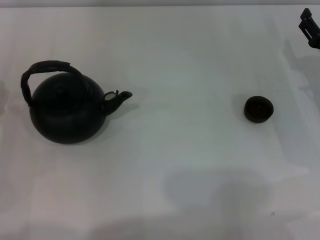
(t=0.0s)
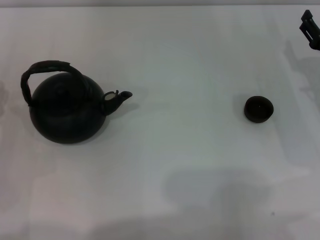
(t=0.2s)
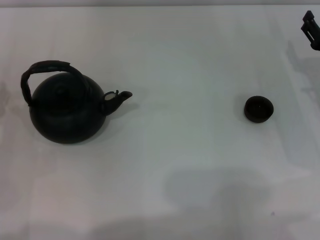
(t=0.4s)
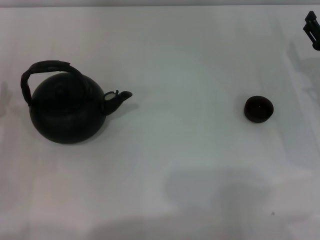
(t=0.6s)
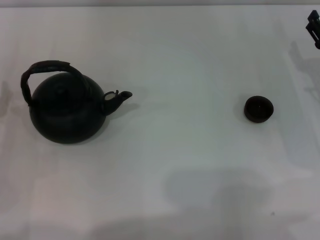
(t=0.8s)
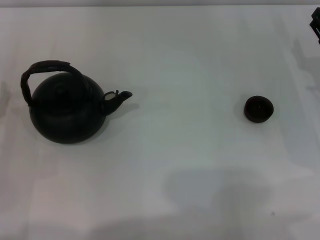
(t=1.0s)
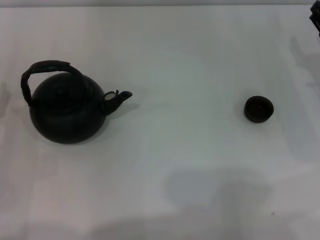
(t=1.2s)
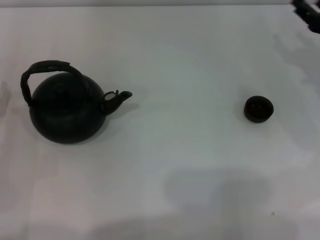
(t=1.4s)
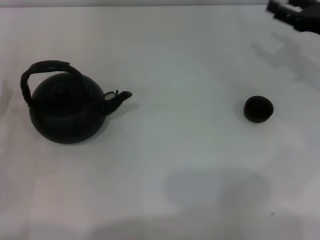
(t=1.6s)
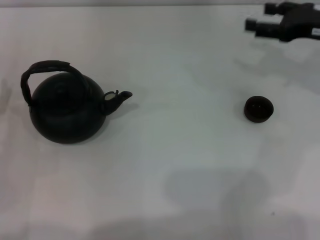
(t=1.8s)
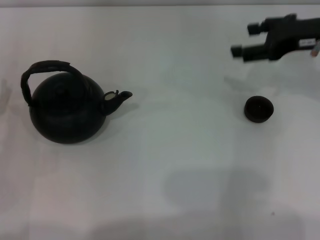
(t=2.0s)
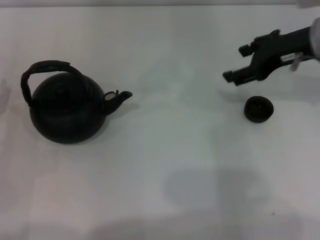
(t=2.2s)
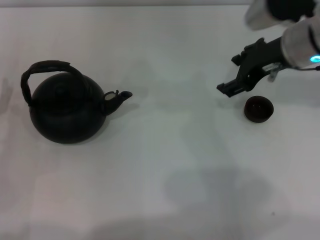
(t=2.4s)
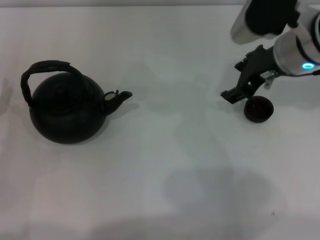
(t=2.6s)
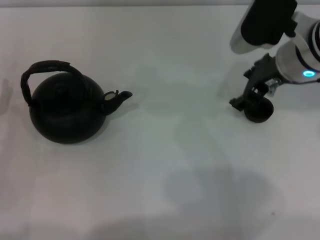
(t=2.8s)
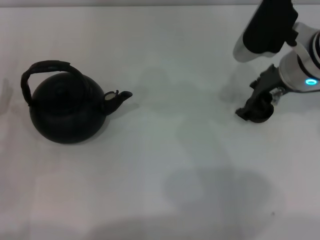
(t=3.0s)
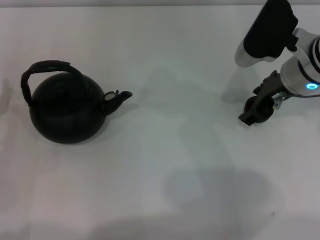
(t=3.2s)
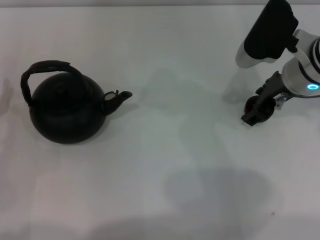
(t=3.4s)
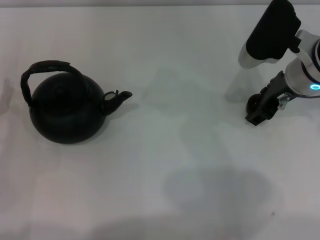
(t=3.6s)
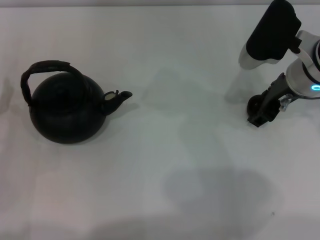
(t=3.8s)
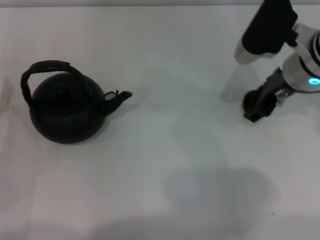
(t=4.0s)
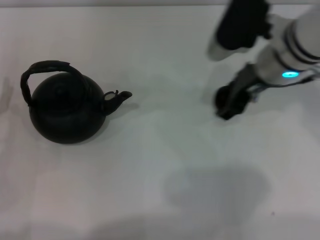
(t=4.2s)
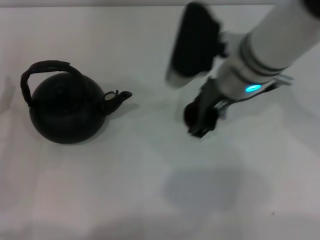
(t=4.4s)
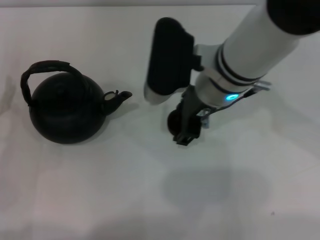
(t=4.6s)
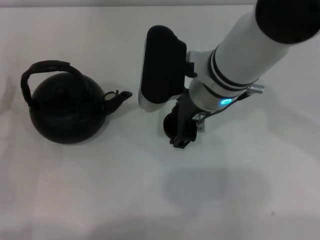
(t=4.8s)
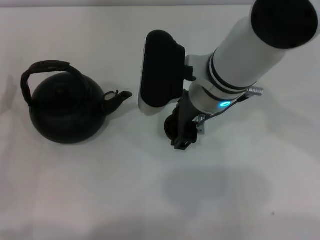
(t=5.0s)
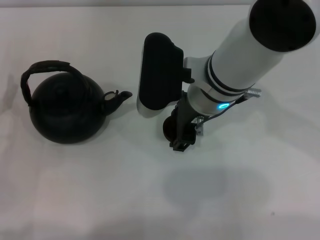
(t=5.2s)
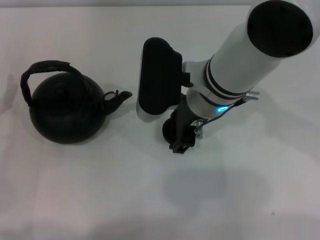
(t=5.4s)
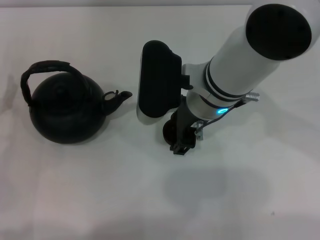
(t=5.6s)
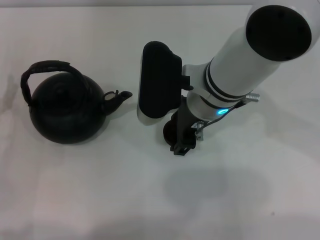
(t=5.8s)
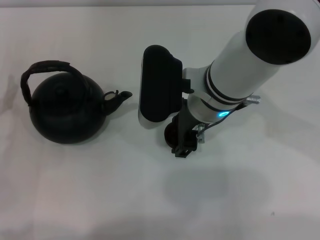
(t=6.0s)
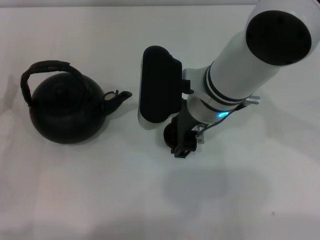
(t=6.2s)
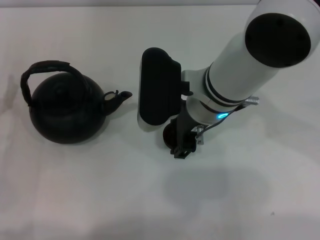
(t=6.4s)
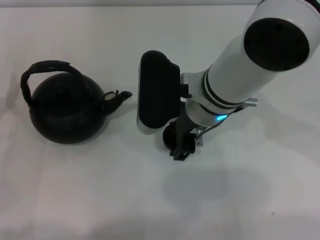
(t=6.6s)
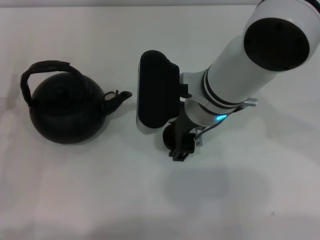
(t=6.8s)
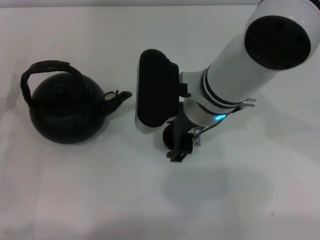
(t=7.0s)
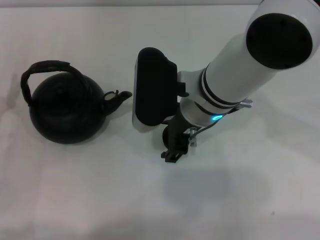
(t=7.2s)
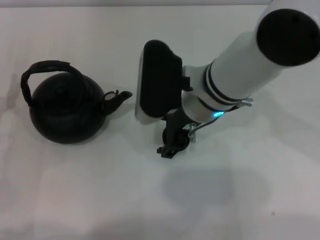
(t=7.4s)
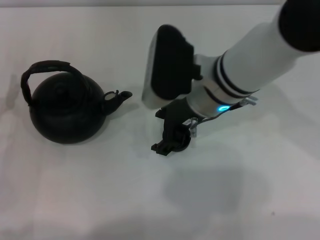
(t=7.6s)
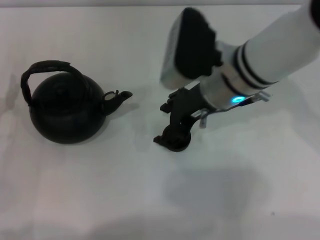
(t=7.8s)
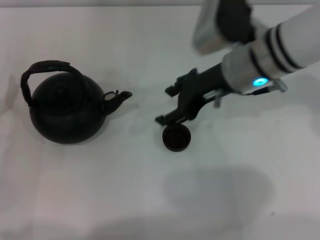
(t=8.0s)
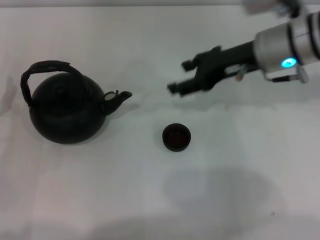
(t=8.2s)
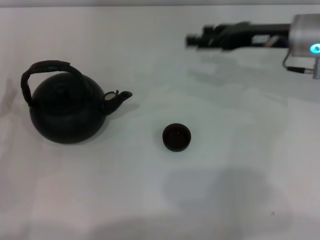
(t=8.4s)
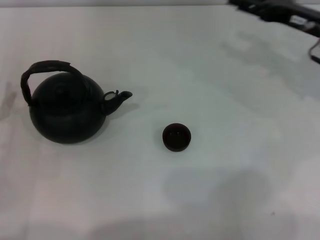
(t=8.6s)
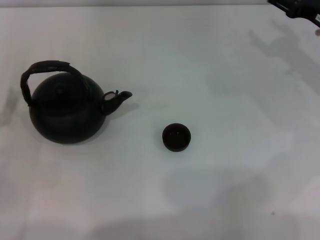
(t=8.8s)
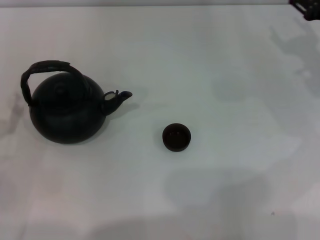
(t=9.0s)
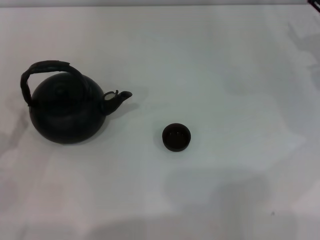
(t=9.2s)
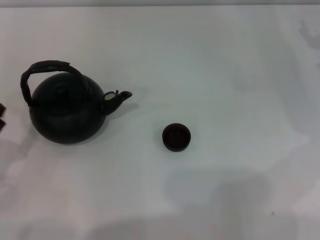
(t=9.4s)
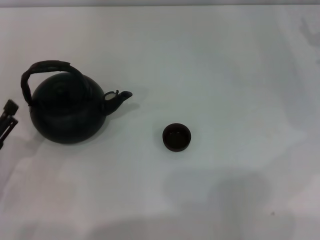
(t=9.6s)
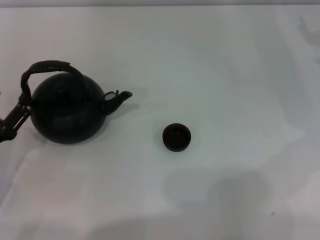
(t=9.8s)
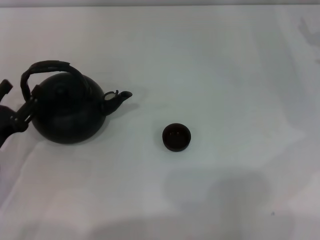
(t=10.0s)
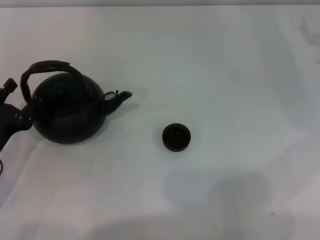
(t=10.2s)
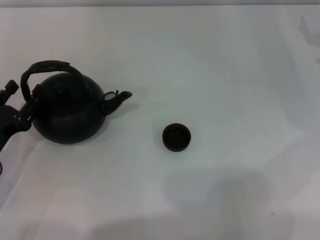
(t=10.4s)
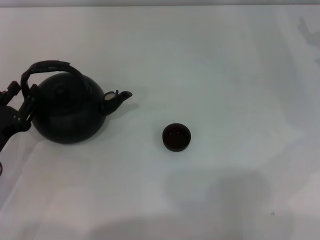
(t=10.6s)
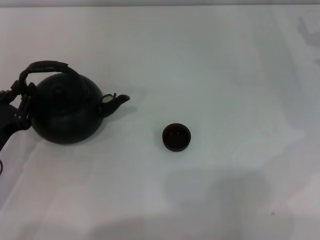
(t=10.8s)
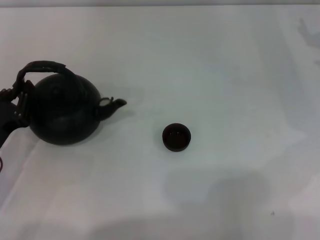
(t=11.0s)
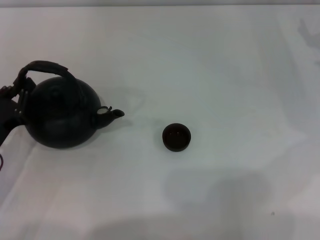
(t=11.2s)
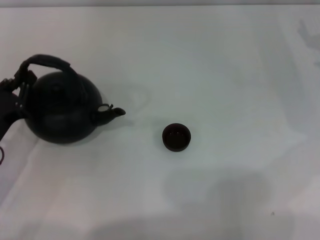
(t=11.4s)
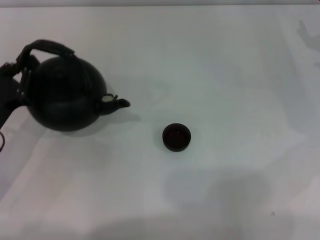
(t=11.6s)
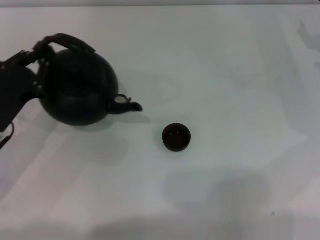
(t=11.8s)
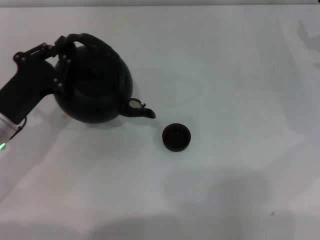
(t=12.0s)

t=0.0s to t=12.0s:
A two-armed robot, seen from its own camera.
Task of the whole recording: Grasp the handle of the teapot with one hand and pour tea into the teacup.
Step, t=0.0s to t=4.2s: Pick up the teacup with the right gripper.
Step, t=4.6s to t=7.6s: Place the teacup in the center of view with the right gripper.
Step, t=8.0s to t=11.6s: Pick up the teapot with the left gripper.
t=0.0s to t=1.6s: The right gripper shifts about 5 cm upward.
t=1.6s to t=3.0s: The right gripper moves to the left, approximately 15 cm.
t=3.0s to t=4.4s: The right gripper shifts about 10 cm to the left.
t=6.0s to t=7.6s: The grippers move only a little.
t=7.6s to t=9.0s: The right gripper moves to the right, approximately 25 cm.
t=9.0s to t=10.4s: The grippers stay close to where they were, moving slightly.
t=10.4s to t=12.0s: The left gripper heads forward, covering roughly 5 cm, and closes its fingers.

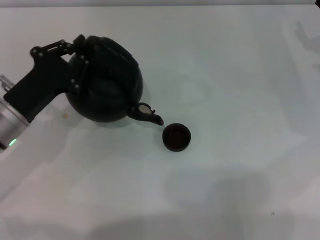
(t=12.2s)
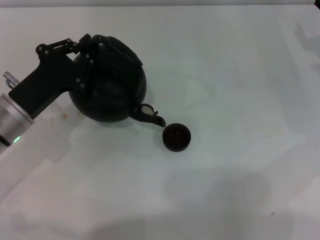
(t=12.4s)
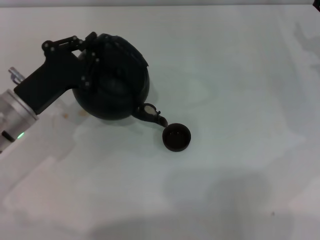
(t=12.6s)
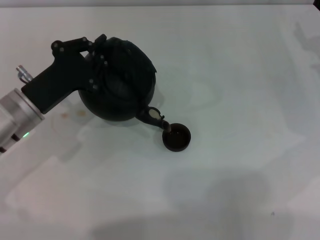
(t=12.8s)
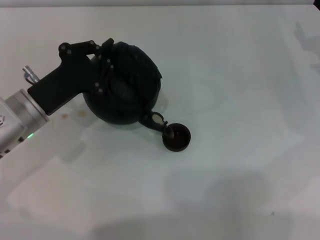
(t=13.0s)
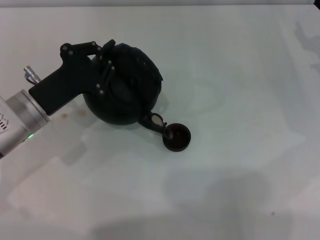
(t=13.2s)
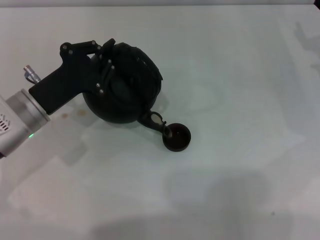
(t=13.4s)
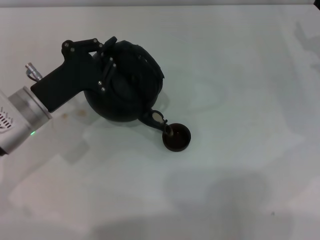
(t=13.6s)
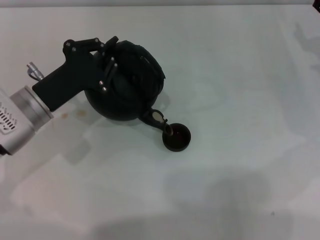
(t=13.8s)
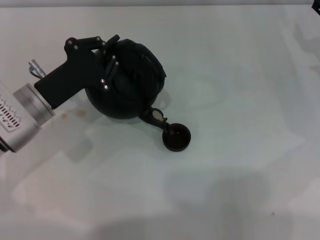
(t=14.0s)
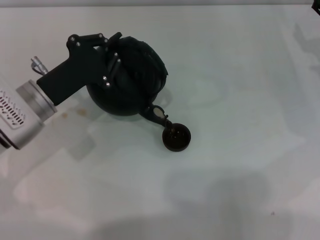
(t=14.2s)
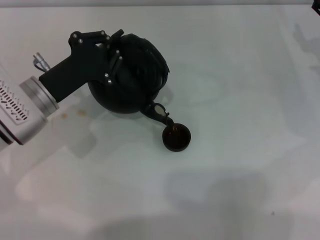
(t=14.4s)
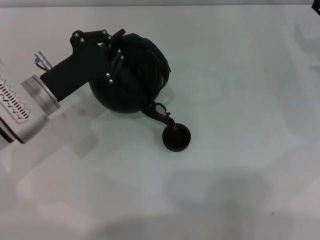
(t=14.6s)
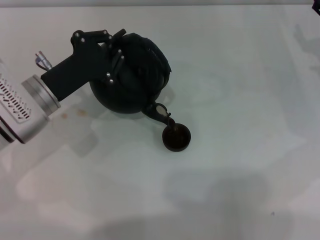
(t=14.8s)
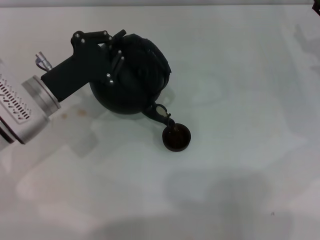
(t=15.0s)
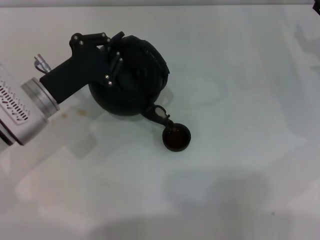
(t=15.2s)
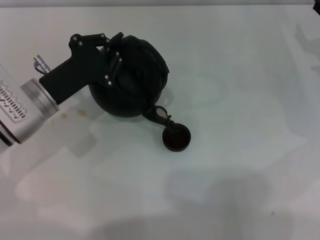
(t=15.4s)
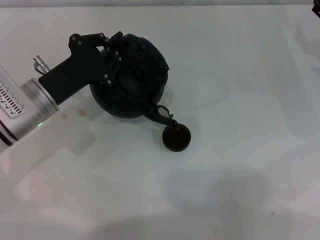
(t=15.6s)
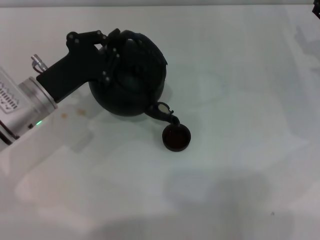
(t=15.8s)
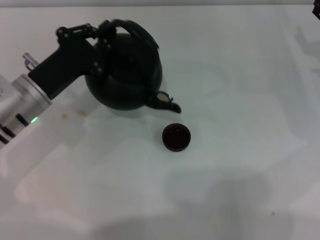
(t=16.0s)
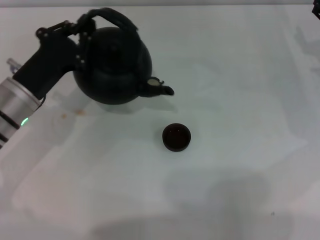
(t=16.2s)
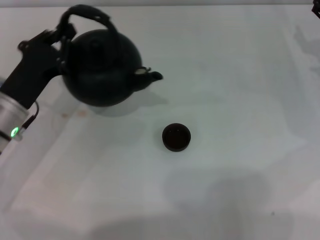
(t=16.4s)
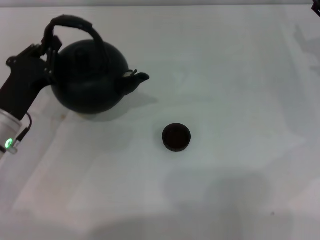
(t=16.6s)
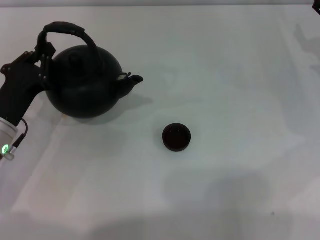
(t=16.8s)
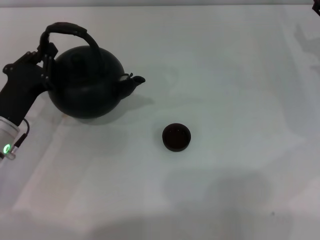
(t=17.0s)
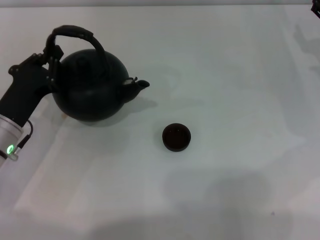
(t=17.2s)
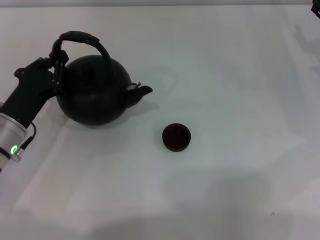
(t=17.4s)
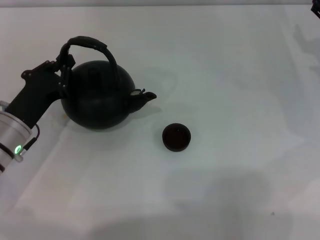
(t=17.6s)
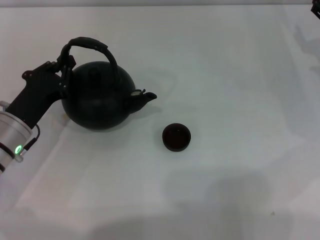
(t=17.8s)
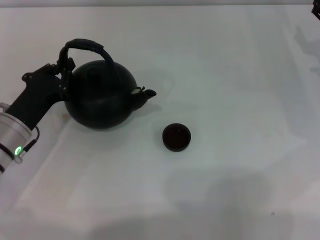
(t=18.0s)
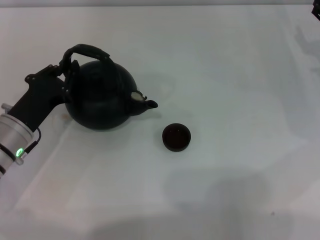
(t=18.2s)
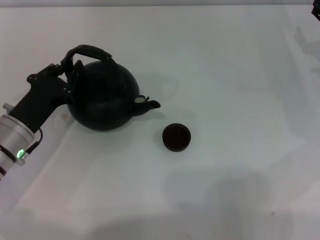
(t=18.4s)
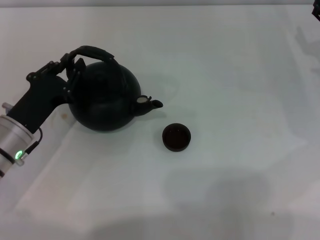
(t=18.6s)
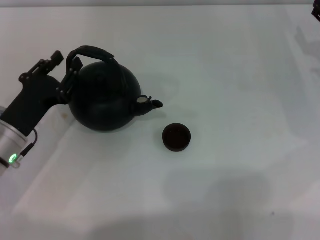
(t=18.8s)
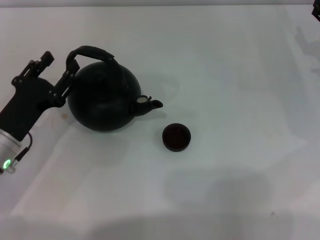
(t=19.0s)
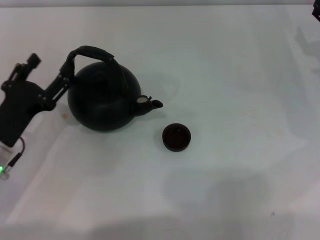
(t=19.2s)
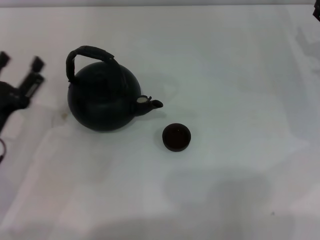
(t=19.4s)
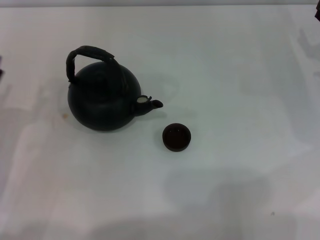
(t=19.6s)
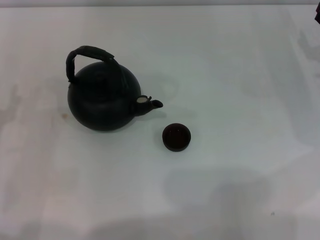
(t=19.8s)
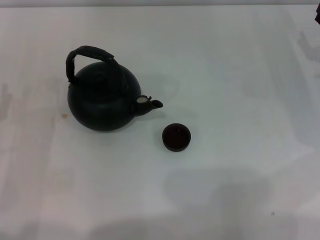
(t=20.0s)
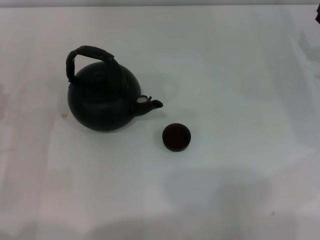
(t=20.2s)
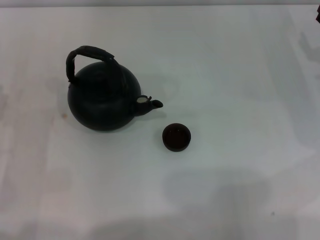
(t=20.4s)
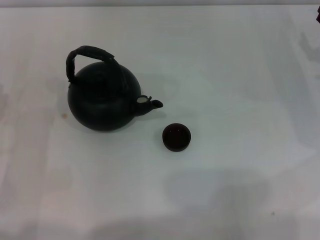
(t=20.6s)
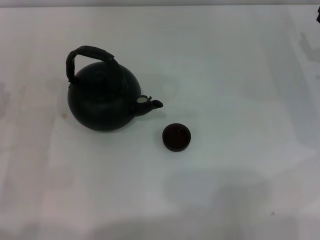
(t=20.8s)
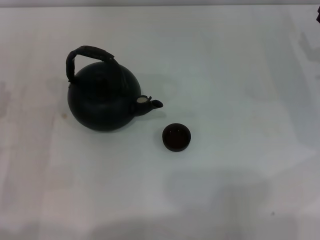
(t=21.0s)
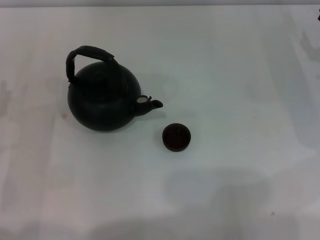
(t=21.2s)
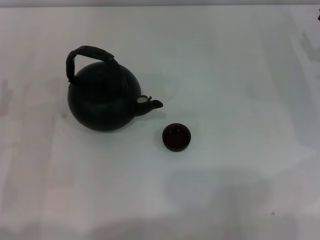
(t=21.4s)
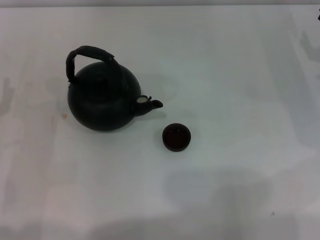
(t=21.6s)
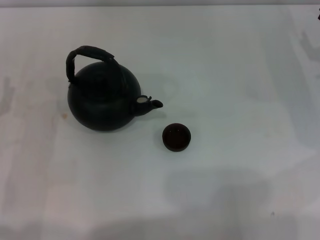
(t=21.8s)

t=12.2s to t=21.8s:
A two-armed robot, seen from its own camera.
Task of the whole recording: Grasp the handle of the teapot with one hand and pour tea into the teacup.
Step, t=12.2s to t=16.0s: Pour tea into the teacup with the left gripper.
Step, t=16.2s to t=19.0s: Put down the teapot with the left gripper.
t=12.2s to t=13.8s: The grippers stay close to where they were, moving slightly.
t=13.8s to t=15.4s: The grippers move only a little.
t=15.4s to t=17.0s: The left gripper ends up about 5 cm from where it was.
t=17.0s to t=18.6s: The grippers move only a little.
t=18.6s to t=20.2s: The left gripper moves to the left and backward, roughly 10 cm, and opens up.
